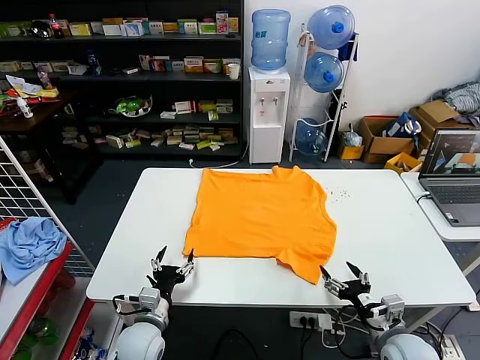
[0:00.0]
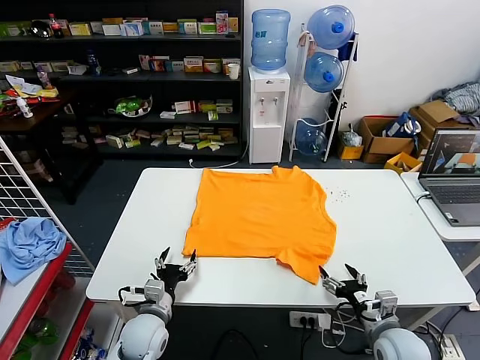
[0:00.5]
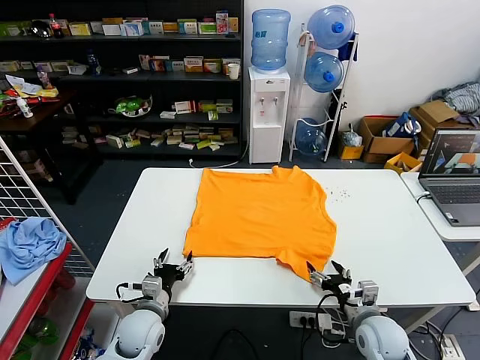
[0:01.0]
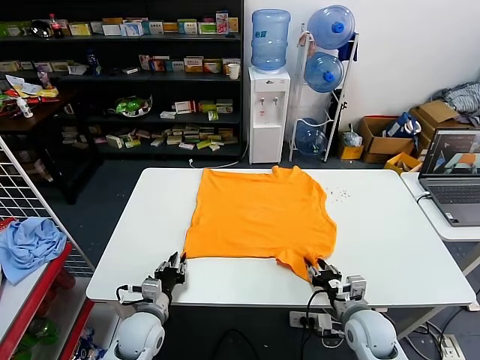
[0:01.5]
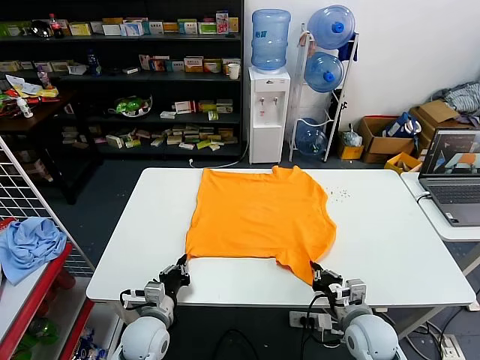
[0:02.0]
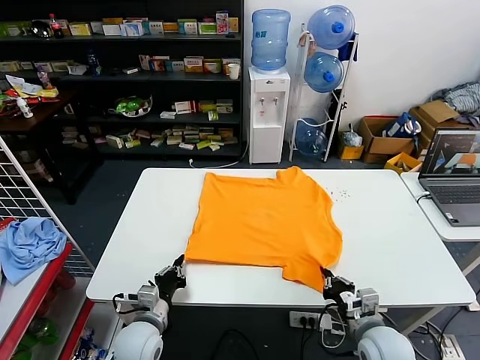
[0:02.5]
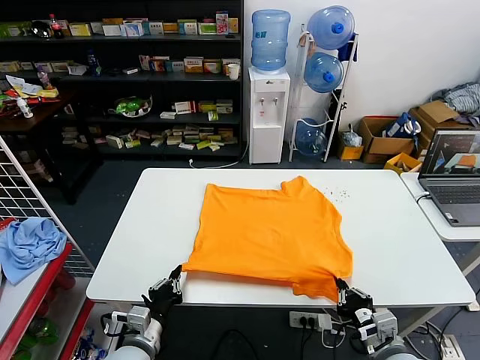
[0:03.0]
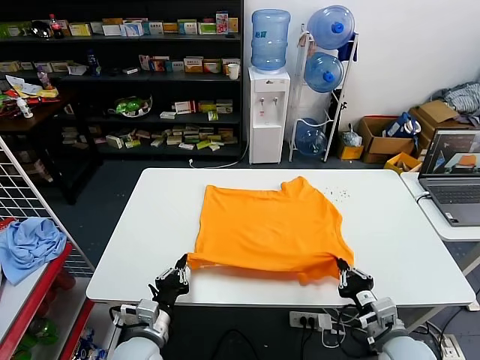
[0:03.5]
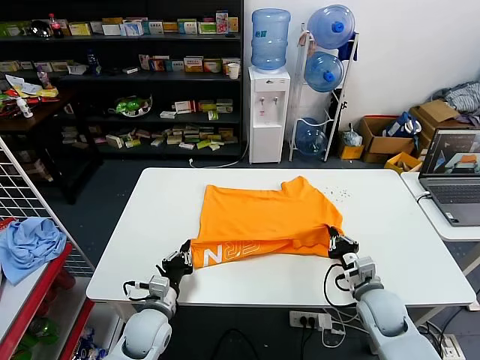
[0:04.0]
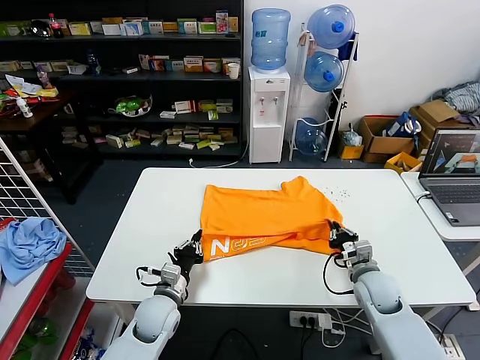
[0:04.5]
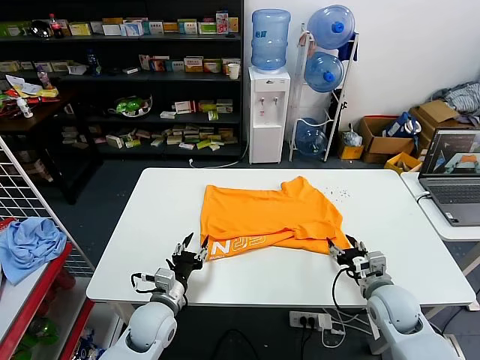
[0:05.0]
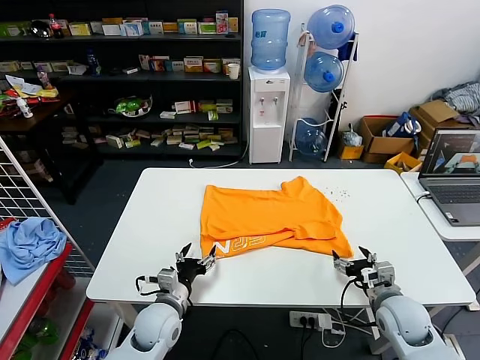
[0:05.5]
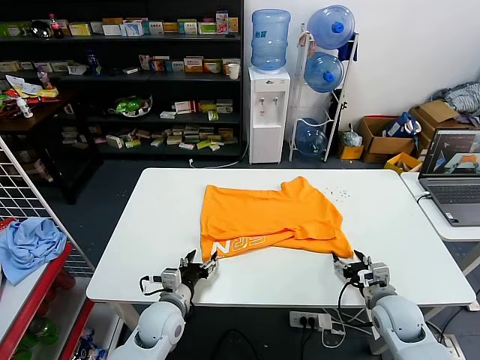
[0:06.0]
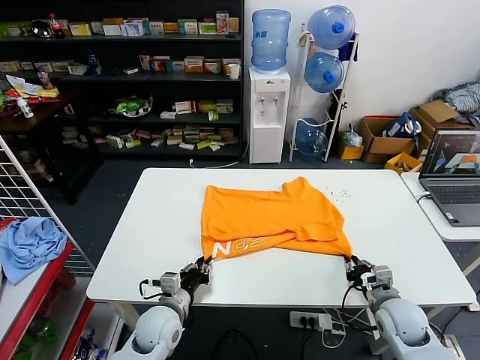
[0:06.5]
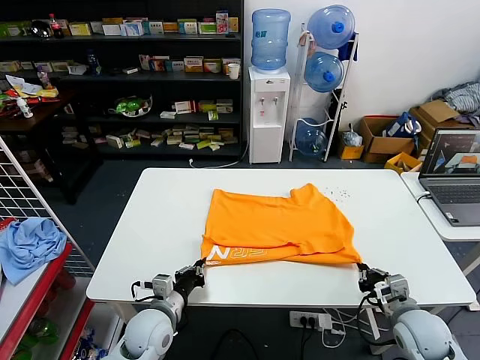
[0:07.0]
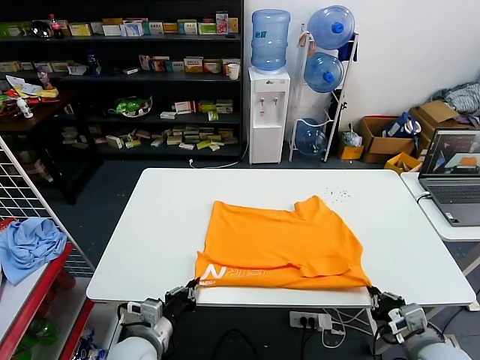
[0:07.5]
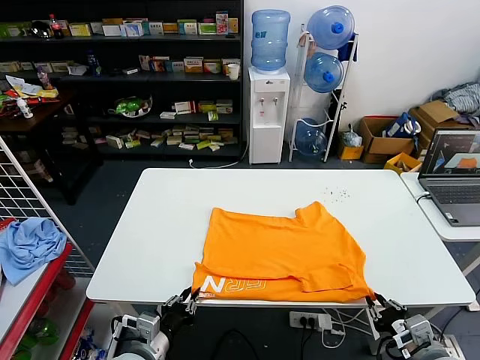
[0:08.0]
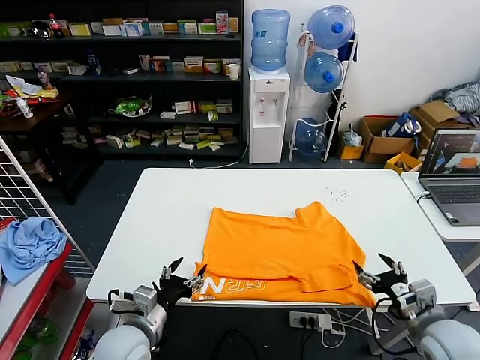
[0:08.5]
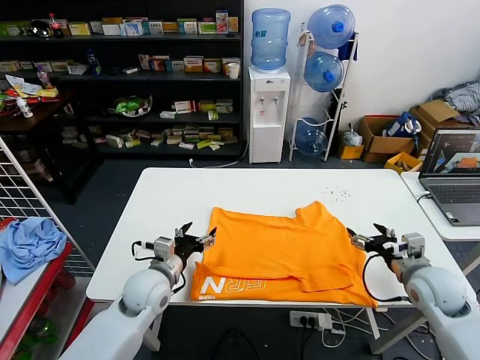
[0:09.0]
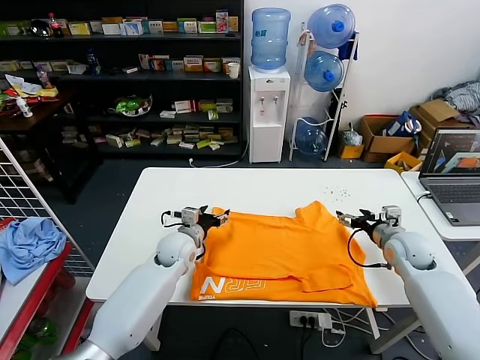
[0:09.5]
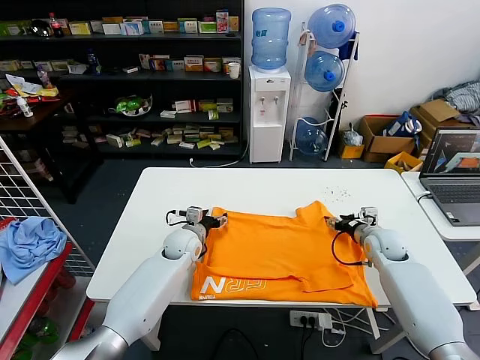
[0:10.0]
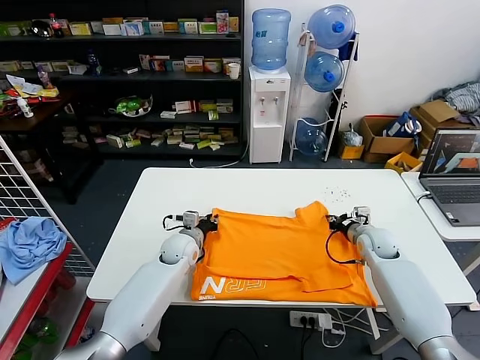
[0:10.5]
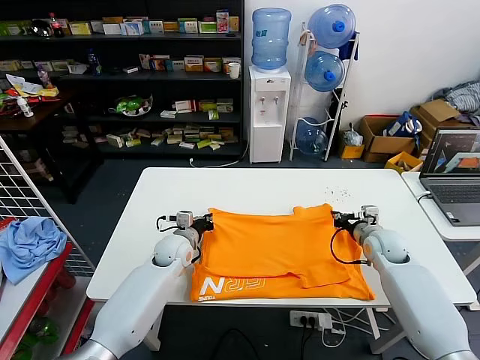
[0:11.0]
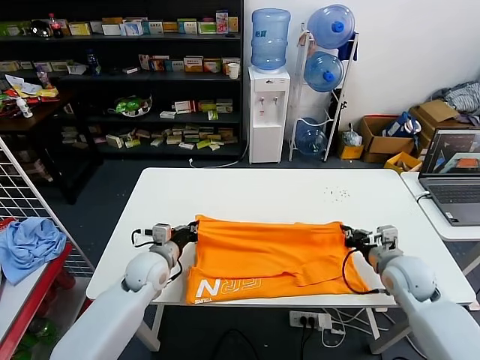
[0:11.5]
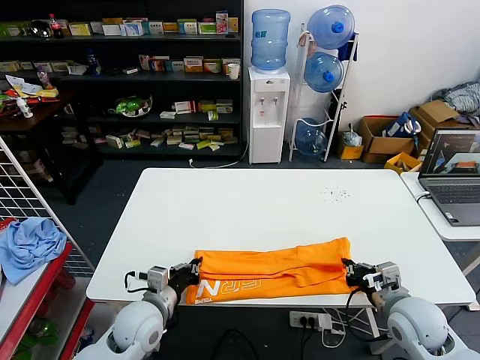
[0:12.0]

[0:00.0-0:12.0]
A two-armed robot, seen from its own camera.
Task of the whole recording: fold and organize the clothes.
Step, 0:00.0 to 0:02.0: use both grippers simultaneously to clamp the lower edge of the clothing fabric.
Step, 0:02.5 to 0:04.5: use both grippers to drag the lower edge of the fabric forward and fold it over the upper edge.
Step, 0:05.0 to 0:08.0: Drag the clothes downward with both gripper.
Step, 0:08.5 to 0:10.5: use both grippers simultaneously to clamp the upper edge of the clothing fabric.
0:02.0 to 0:04.0: The left gripper moves some 5 cm backward and comes back. The right gripper travels forward by approximately 5 cm.
0:04.0 to 0:06.0: The right gripper opens, while the left gripper opens its fingers.
0:06.0 to 0:08.0: The left gripper is displaced backward by some 10 cm, and closes. Meanwhile the right gripper goes approximately 15 cm backward and upward, and closes its fingers.
0:08.0 to 0:10.0: The grippers both shift forward by approximately 30 cm. The right gripper opens; the left gripper opens.
0:10.0 to 0:12.0: The grippers both shift backward by some 20 cm. The right gripper closes, while the left gripper closes its fingers.

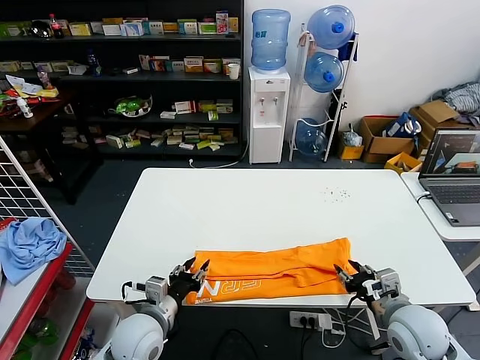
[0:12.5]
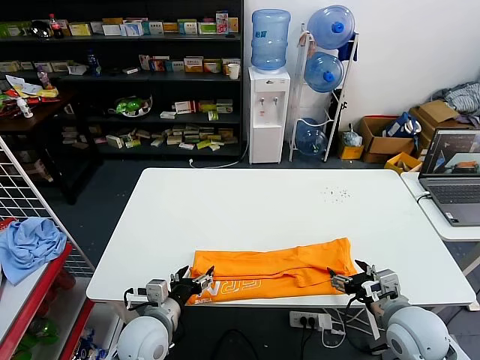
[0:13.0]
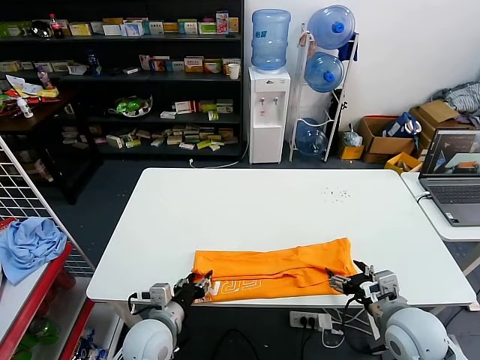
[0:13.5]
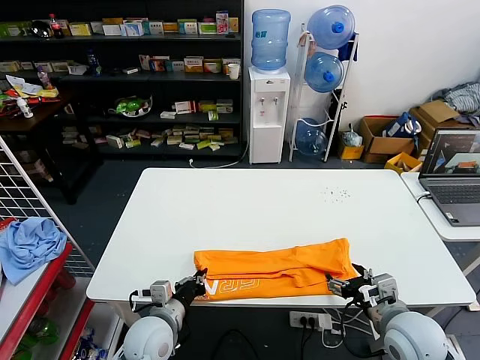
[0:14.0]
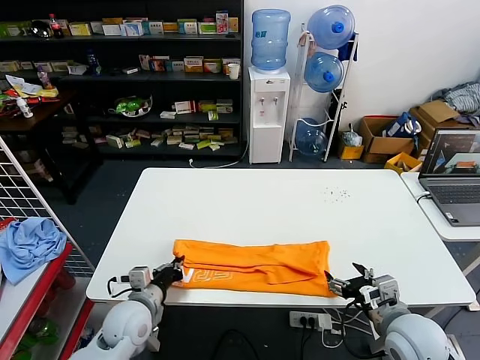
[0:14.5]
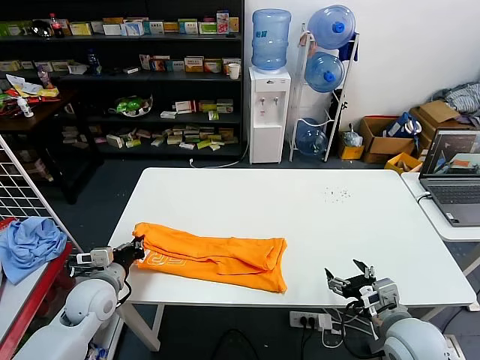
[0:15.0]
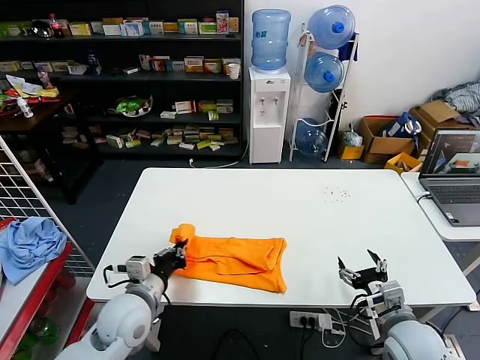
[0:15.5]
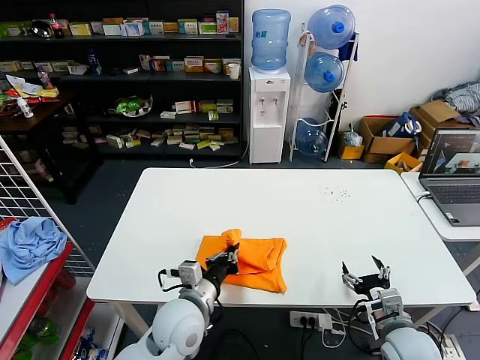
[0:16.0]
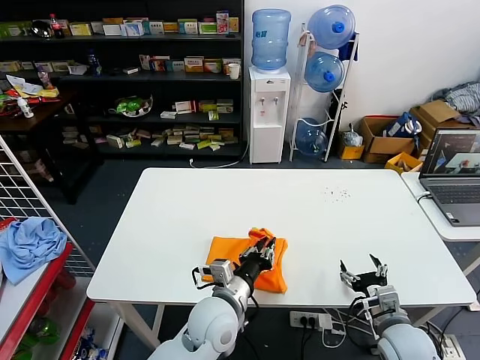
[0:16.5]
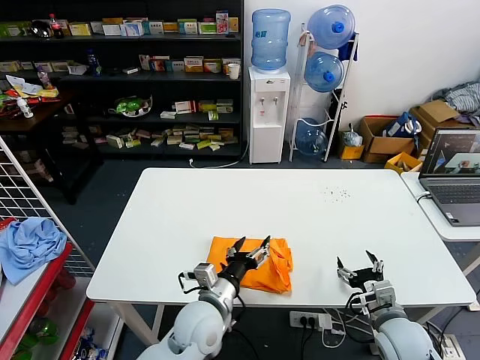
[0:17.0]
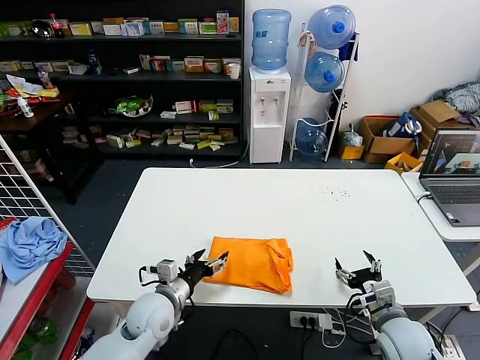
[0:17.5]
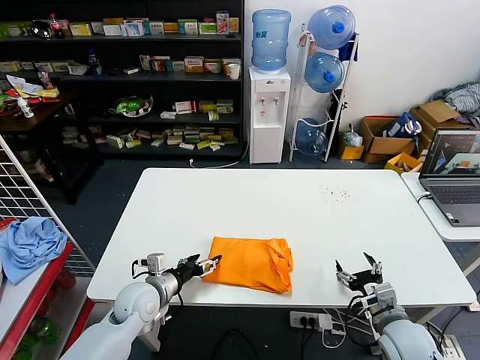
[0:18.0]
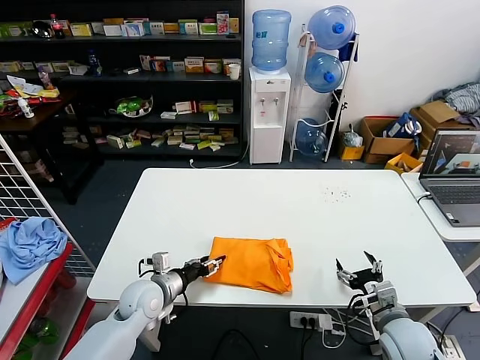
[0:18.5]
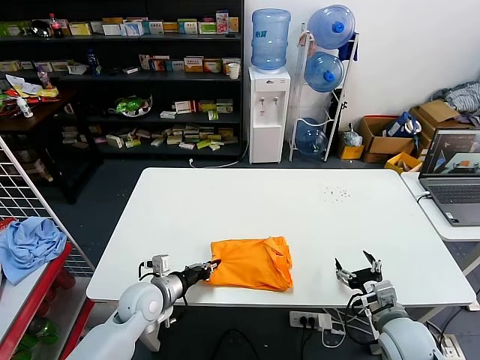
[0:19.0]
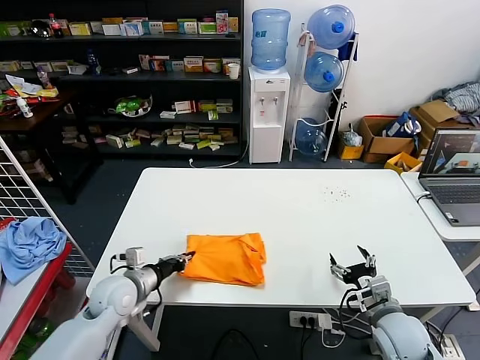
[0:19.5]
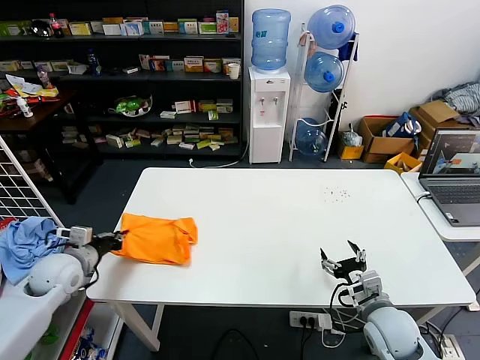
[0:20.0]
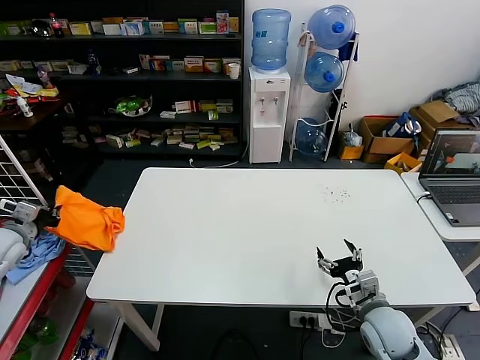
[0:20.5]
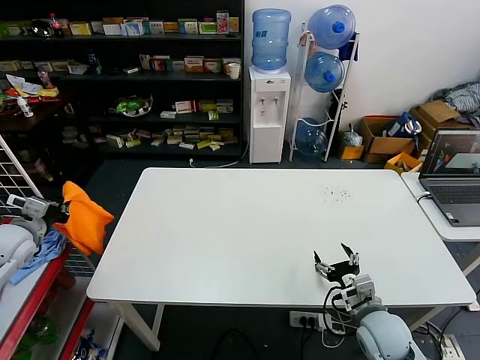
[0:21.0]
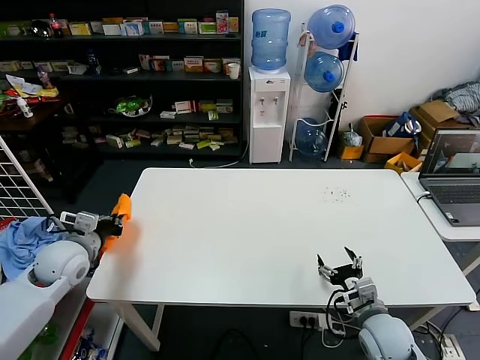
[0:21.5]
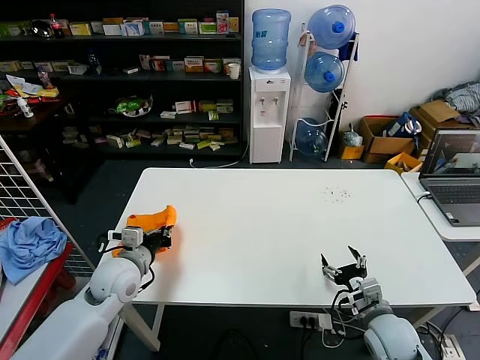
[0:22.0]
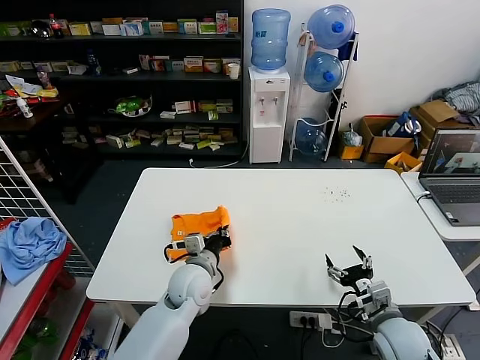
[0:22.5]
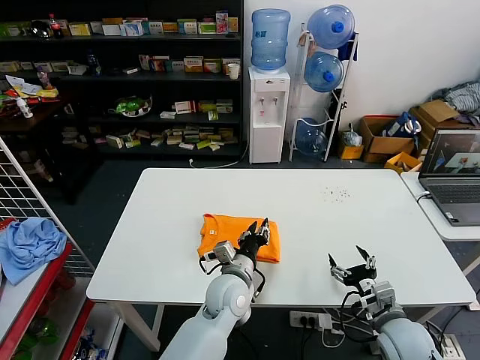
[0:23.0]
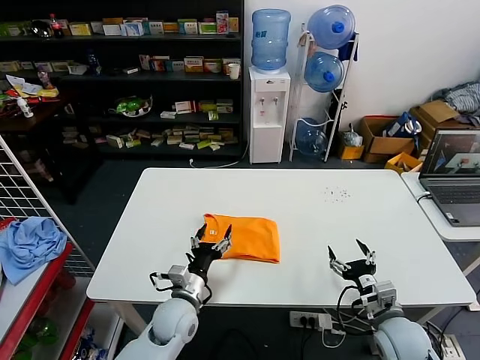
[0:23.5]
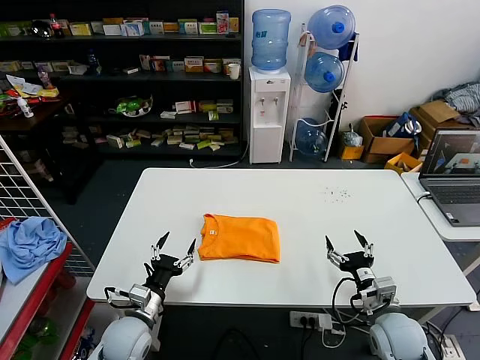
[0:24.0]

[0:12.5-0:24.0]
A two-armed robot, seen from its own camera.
Task of the whole recording: fold and organize the clothes.
Step, 0:13.0 to 0:14.0: use the left gripper to clamp the left edge of the fabric.
Step, 0:14.5 to 0:16.5: use the left gripper to drag the left edge of the fabric to the left and folds it over the right edge.
Step, 0:17.0 to 0:23.0: Flip the folded clothes over with left gripper.
0:12.5 to 0:14.5: The right gripper opens its fingers; the left gripper closes up.
0:14.5 to 0:16.5: The right gripper heads downward, covering approximately 5 cm. Meanwhile the left gripper moves to the right, some 20 cm.
0:16.5 to 0:18.5: The left gripper shifts approximately 20 cm to the left, and opens up.
0:18.5 to 0:20.0: The left gripper travels to the left and upward by some 20 cm, and closes.
0:20.0 to 0:22.0: The left gripper is displaced to the right by approximately 10 cm.
0:22.0 to 0:24.0: The left gripper moves downward and backward, approximately 15 cm, moves about 25 cm to the right and comes back, and opens its fingers.
